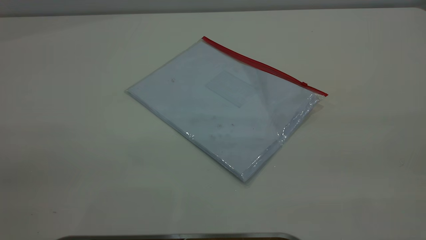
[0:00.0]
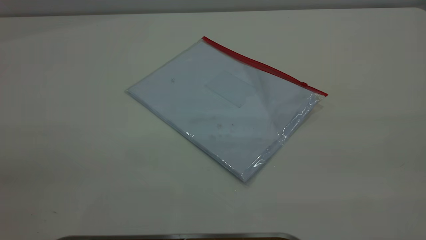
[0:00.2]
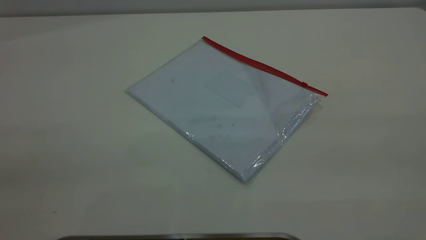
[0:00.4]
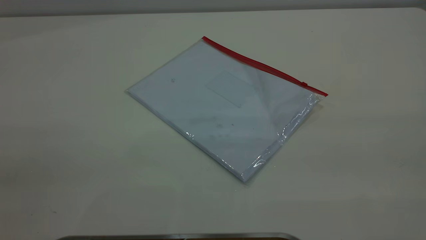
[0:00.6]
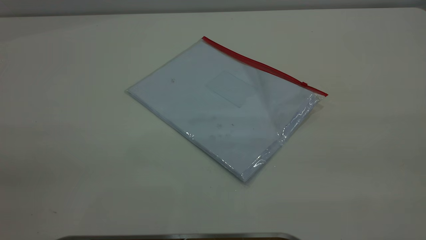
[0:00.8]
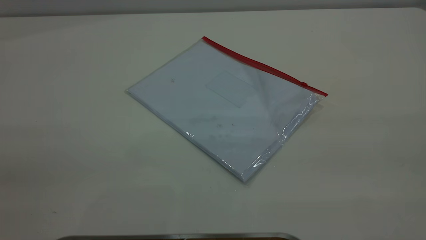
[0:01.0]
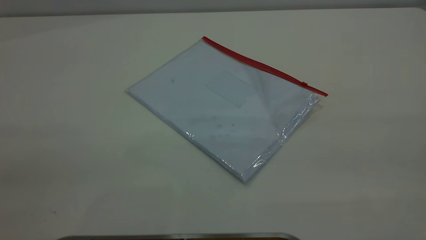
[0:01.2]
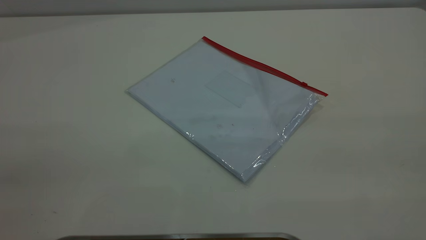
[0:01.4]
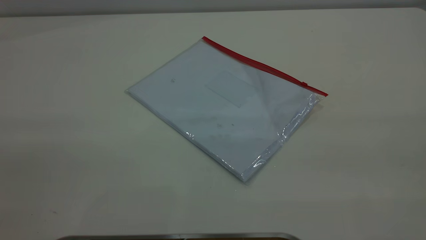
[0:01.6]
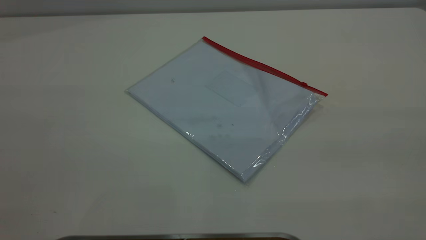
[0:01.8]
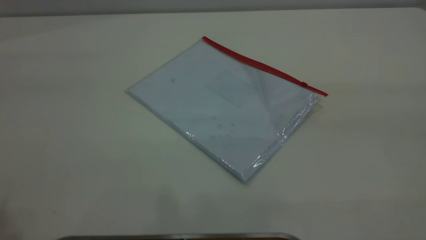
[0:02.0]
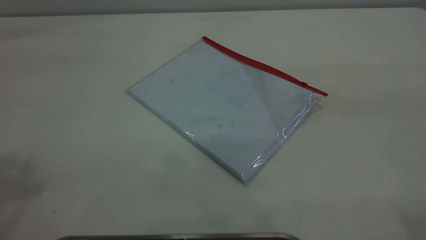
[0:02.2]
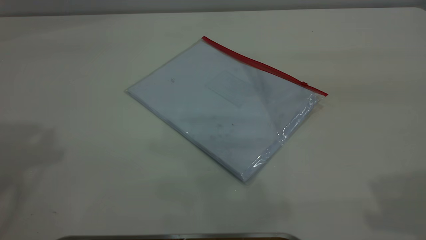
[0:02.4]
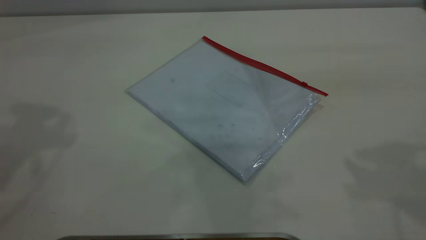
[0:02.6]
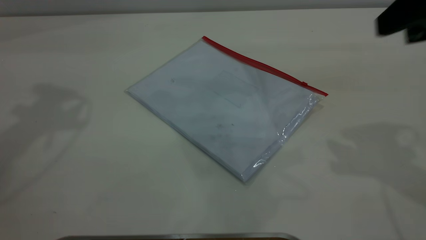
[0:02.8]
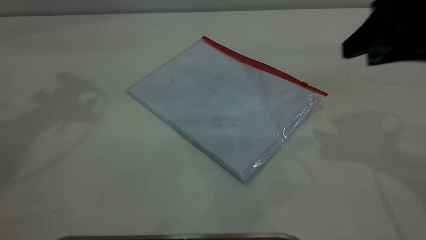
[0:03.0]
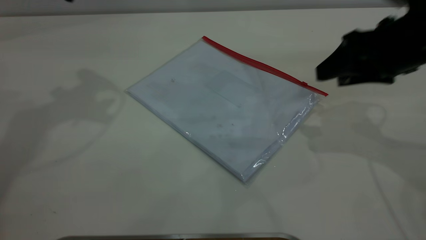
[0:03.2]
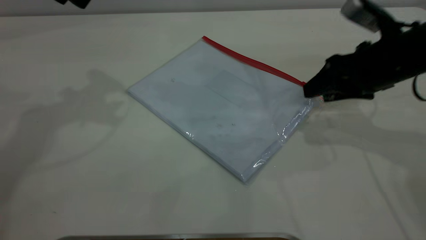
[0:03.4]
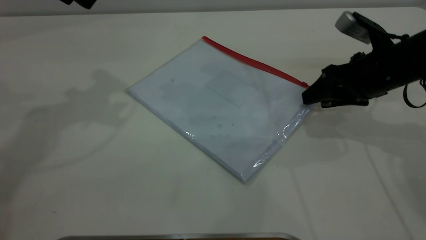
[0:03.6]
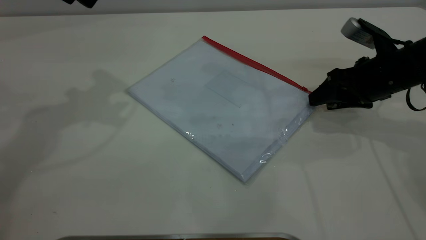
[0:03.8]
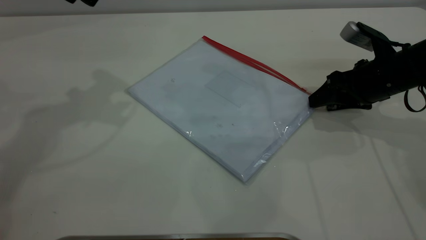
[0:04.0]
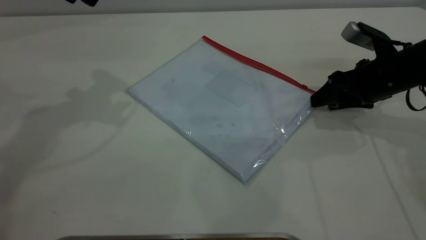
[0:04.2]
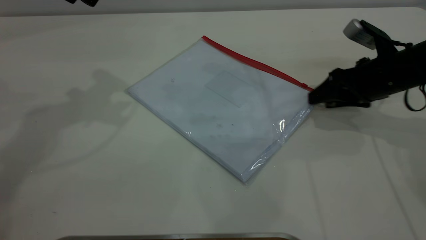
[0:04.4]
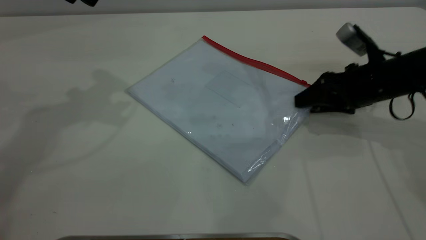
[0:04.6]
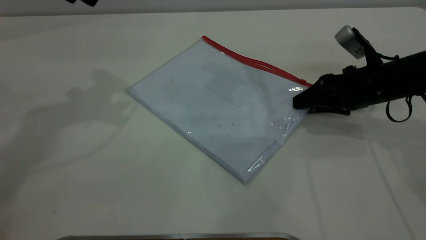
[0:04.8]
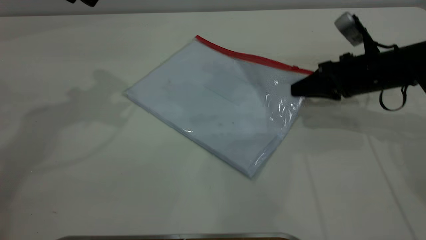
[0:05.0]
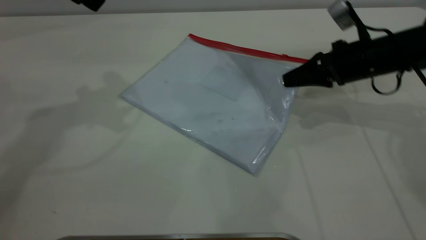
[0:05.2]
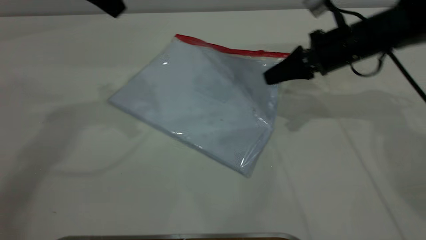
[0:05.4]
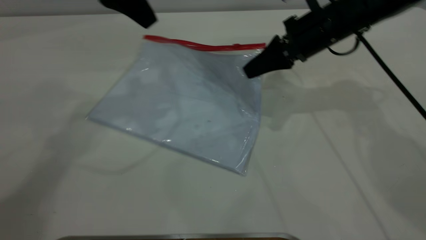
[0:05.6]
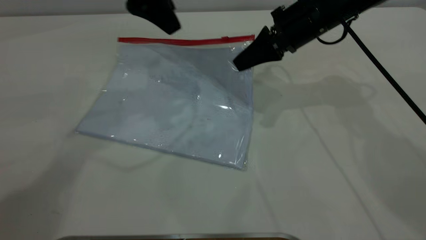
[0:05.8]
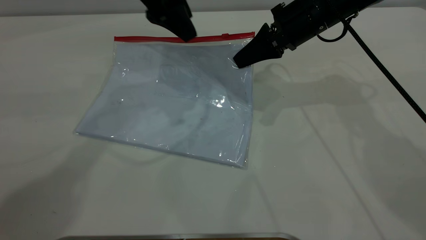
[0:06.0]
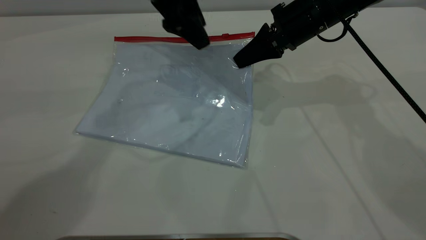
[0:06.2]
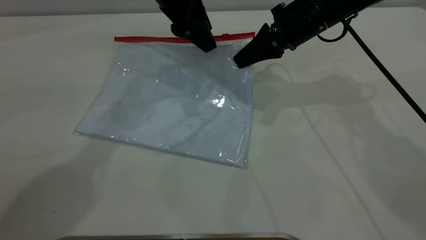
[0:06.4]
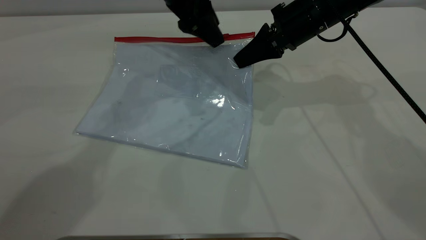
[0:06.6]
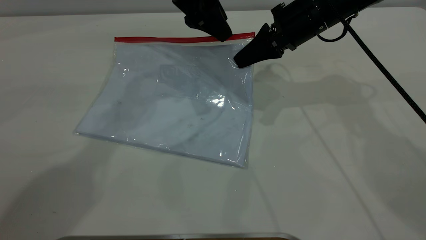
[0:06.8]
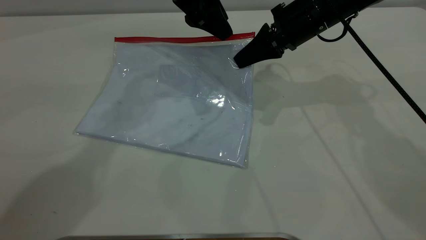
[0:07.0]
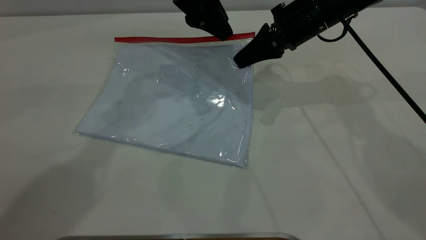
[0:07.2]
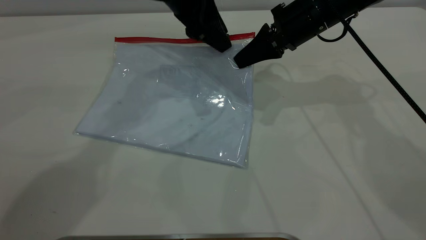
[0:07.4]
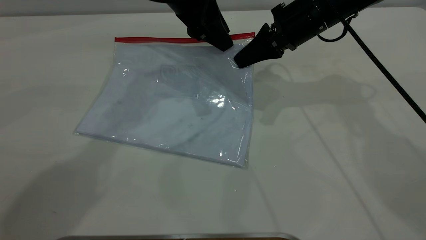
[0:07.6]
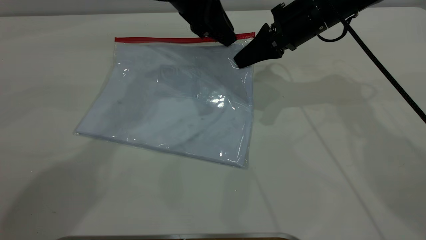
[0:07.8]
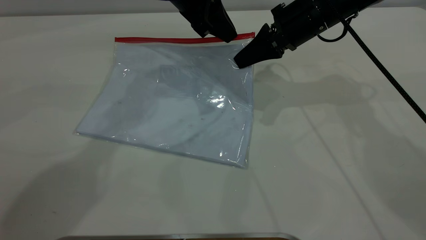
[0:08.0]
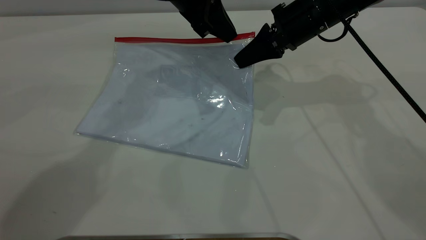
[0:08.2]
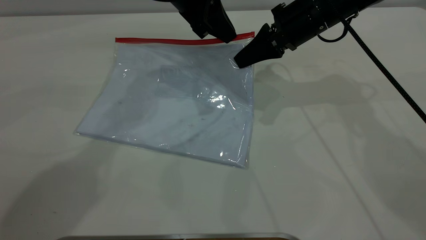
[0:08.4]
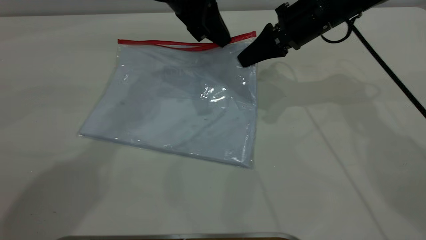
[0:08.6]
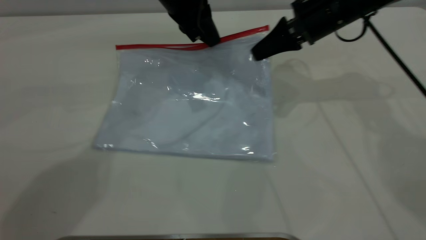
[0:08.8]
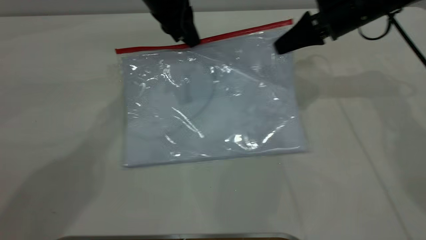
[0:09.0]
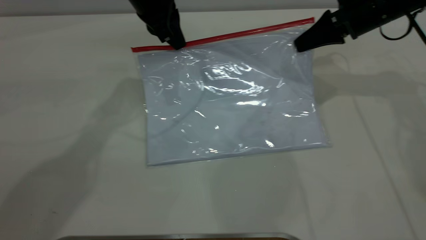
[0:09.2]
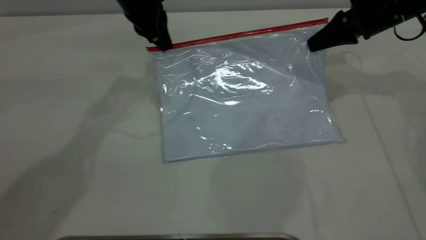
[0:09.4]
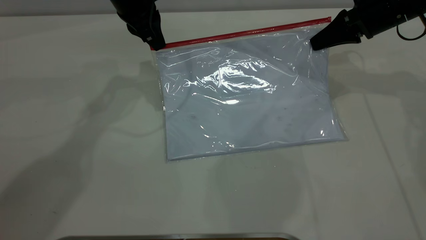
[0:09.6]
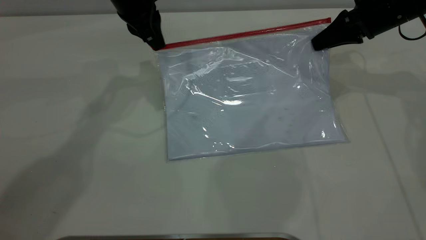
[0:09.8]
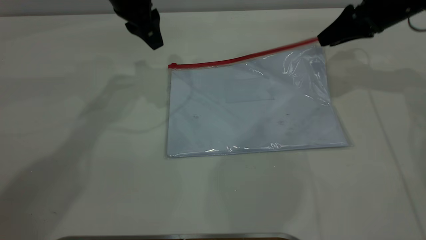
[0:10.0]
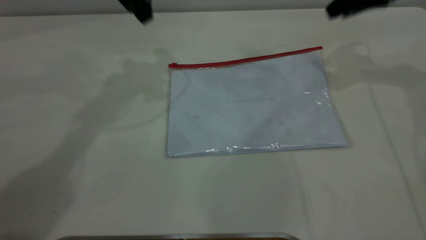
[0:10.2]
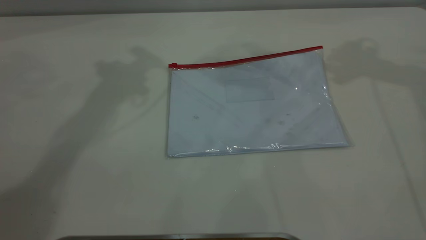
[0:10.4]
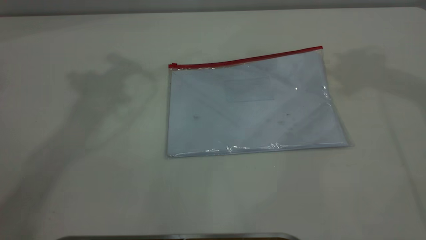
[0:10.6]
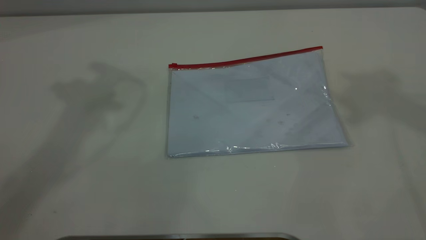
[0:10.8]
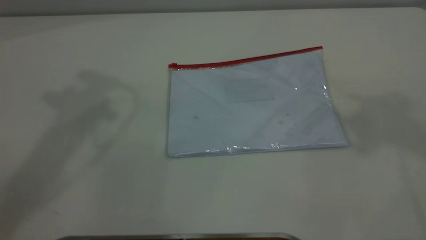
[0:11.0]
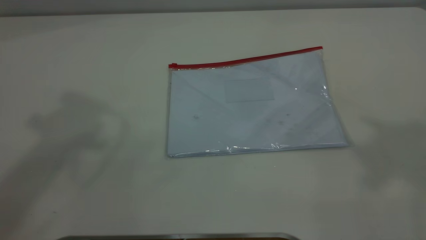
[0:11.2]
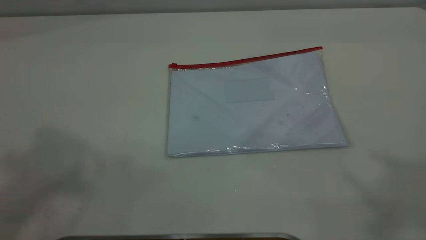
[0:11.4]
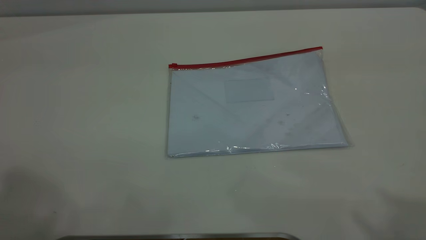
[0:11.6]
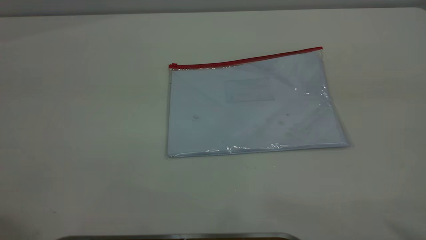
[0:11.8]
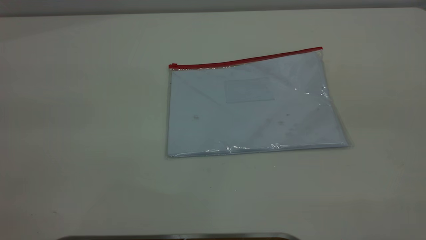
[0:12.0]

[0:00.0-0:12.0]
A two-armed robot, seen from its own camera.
Step, 0.0 to 5.2 s: Pick up the transparent plastic bag with the right gripper.
Step, 5.4 to 9.8 s: Pulling up the zipper on the transparent plastic bag with the left gripper to close it.
1.6 to 3.0 s: The right gripper moves forward and downward, about 35 cm.
3.0 to 4.4 s: The right gripper heads downward and forward, covering some 15 cm.
4.4 to 6.0 s: The left gripper moves to the right and downward, about 15 cm, while the right gripper is displaced to the left, forward and upward by some 15 cm, and closes up.
6.0 to 7.6 s: The left gripper shifts by about 5 cm.
7.6 to 9.0 s: The right gripper moves to the right, roughly 10 cm. Meanwhile the left gripper closes.
9.0 to 10.4 s: The right gripper goes approximately 20 cm upward, and opens its fingers; the left gripper is displaced upward and to the left by roughly 15 cm, and opens.

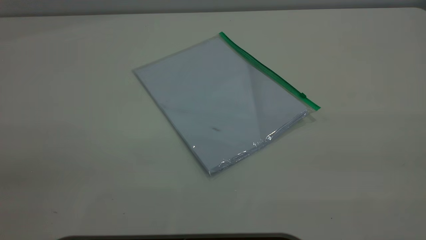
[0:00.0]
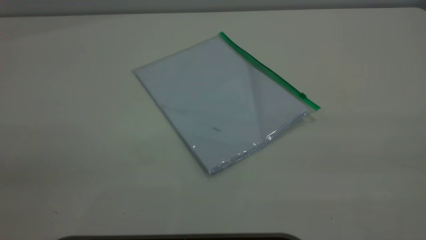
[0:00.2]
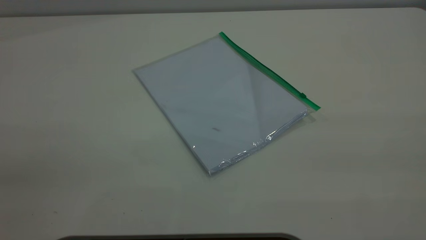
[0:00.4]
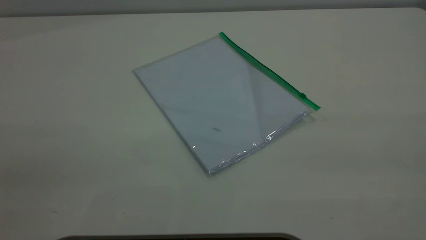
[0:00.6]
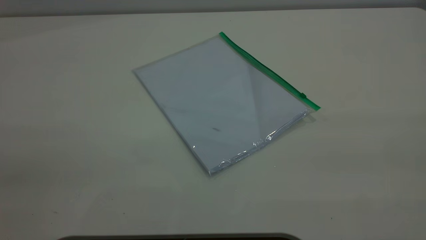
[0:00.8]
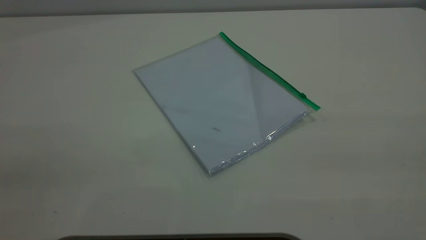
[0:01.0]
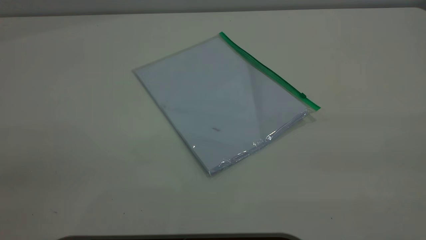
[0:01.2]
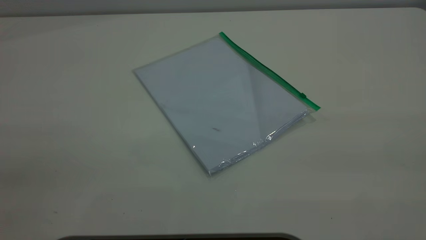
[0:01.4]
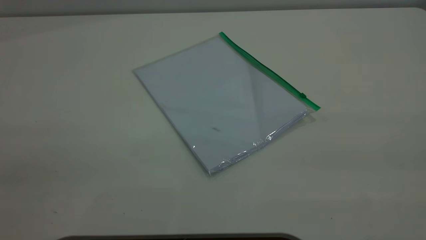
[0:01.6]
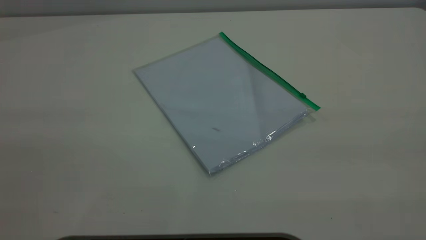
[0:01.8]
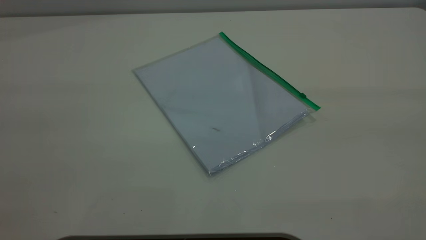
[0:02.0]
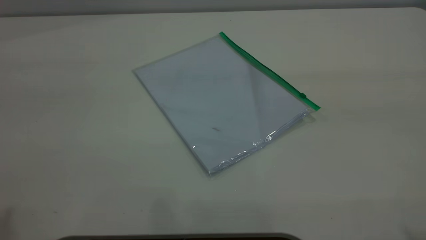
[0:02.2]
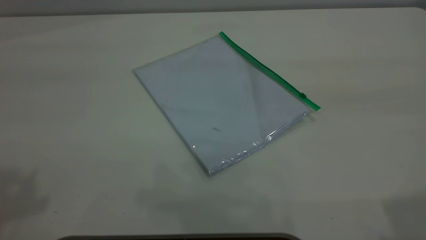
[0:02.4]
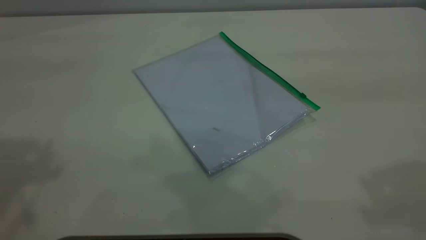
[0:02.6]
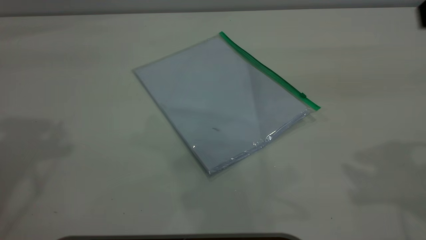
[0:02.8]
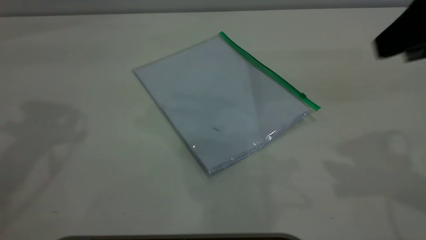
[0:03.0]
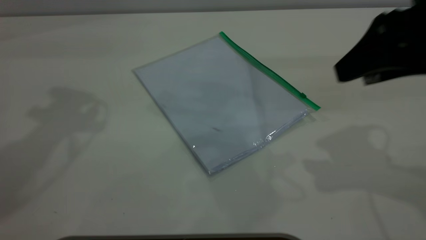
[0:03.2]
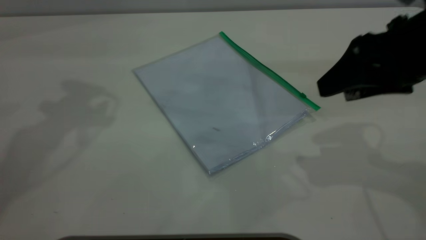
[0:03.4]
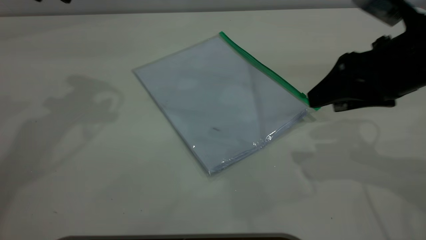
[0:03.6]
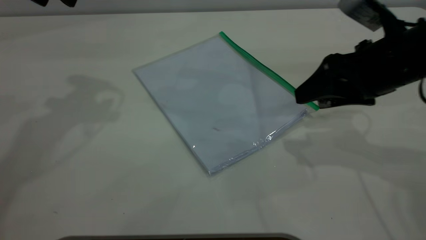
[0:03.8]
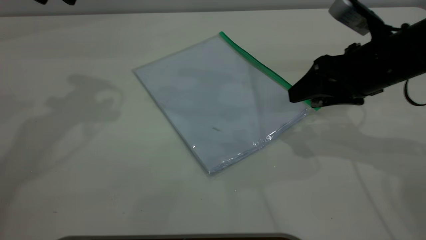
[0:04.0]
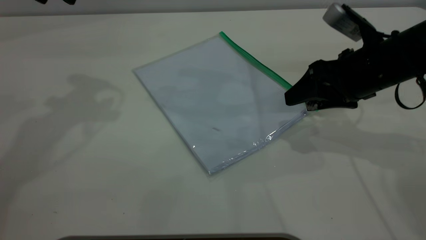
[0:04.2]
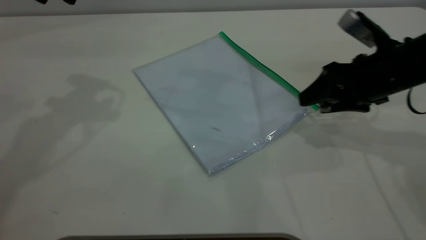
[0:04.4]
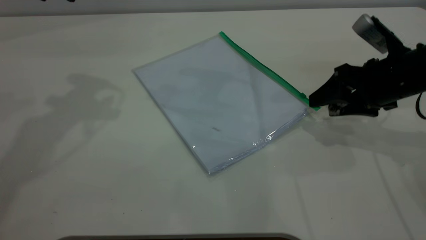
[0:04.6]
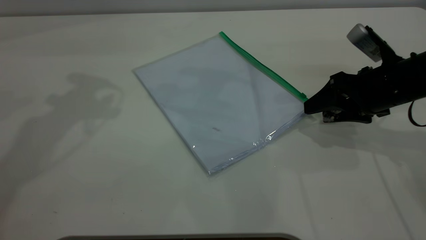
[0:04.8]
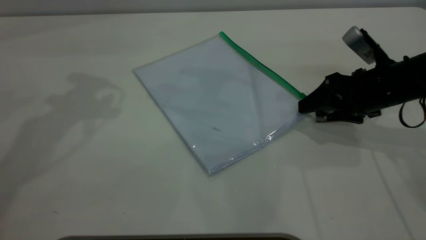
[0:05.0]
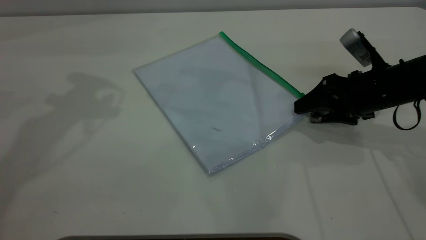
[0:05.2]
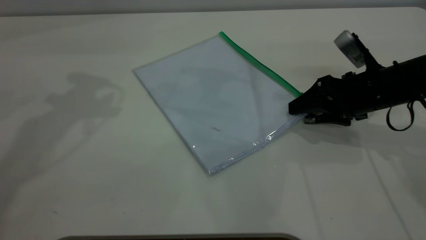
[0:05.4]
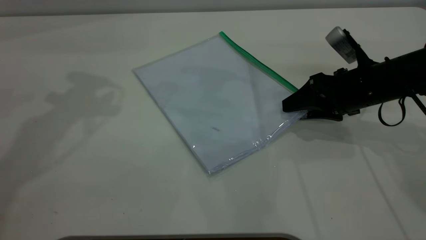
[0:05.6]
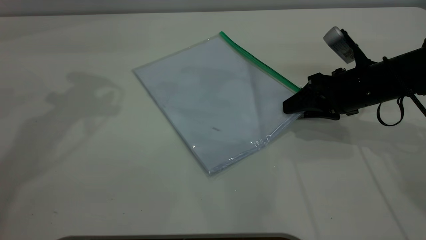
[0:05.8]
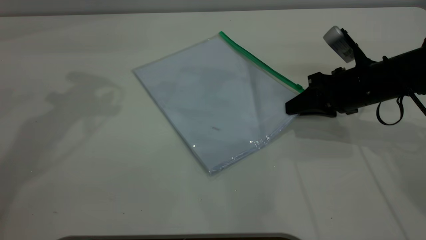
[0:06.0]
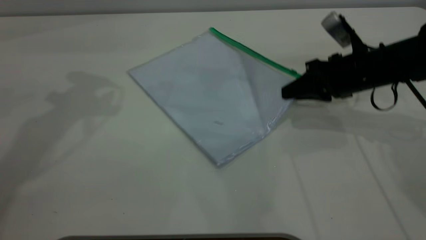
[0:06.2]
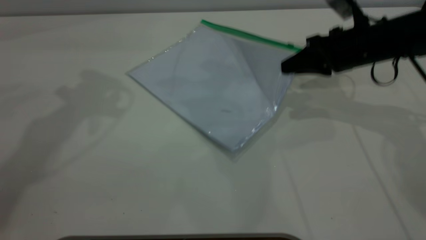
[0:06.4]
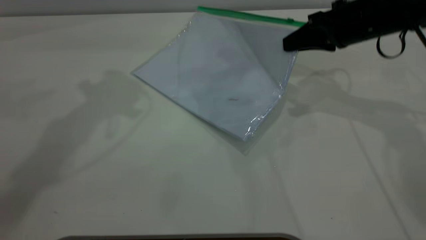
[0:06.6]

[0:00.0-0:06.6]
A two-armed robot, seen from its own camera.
Step, 0.0 to 6.2 s: Pick up the transparent plastic bag with the right gripper.
0.0 to 1.6 s: Both grippers stay put.
1.6 to 3.2 s: The right gripper travels forward and downward by some 30 cm.
3.2 to 5.0 s: The right gripper goes approximately 20 cm downward and forward.
5.0 to 6.6 s: The right gripper shifts approximately 10 cm upward and forward, and closes its fingers; the left gripper moves to the right, some 5 cm.
